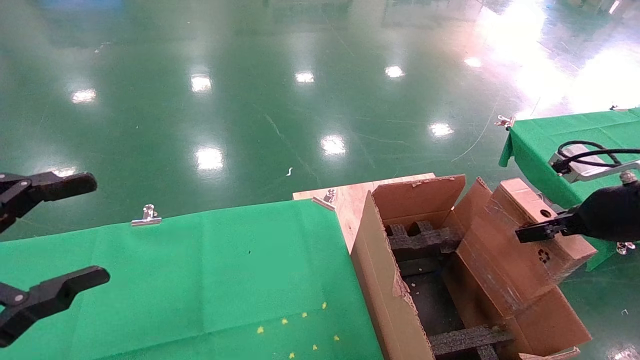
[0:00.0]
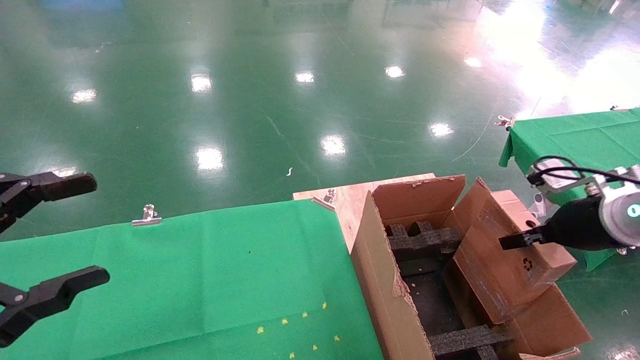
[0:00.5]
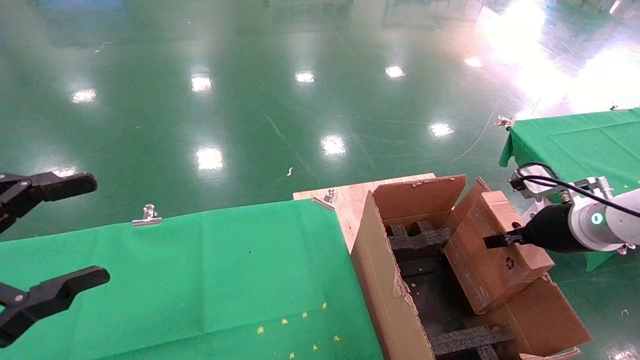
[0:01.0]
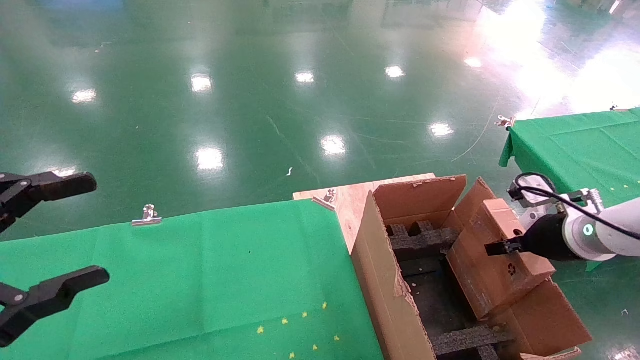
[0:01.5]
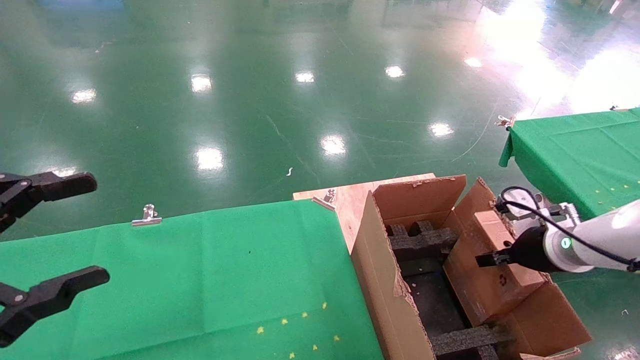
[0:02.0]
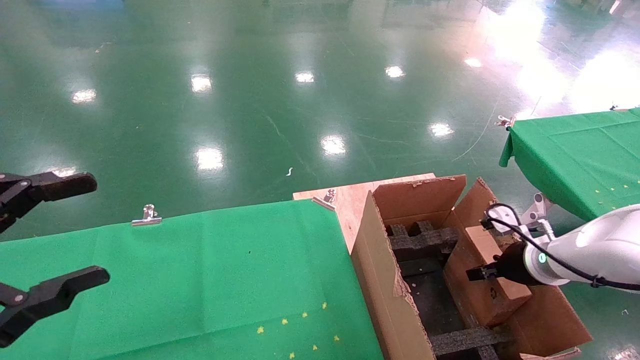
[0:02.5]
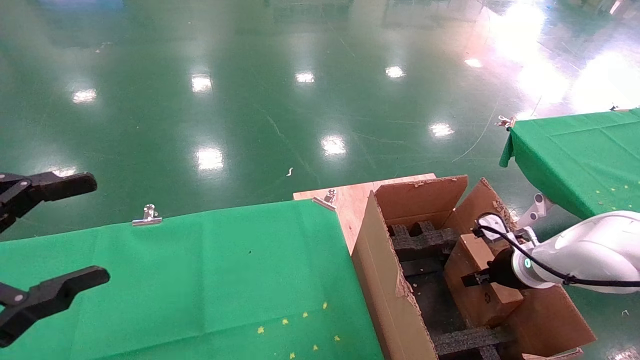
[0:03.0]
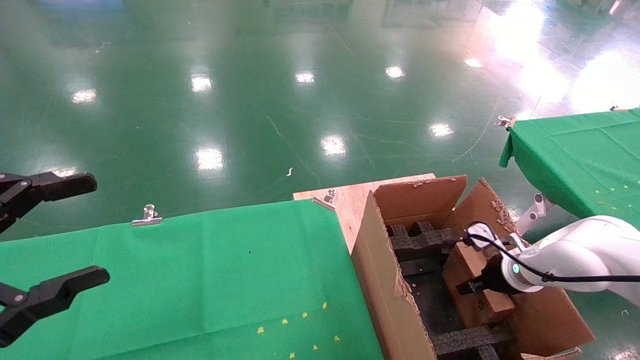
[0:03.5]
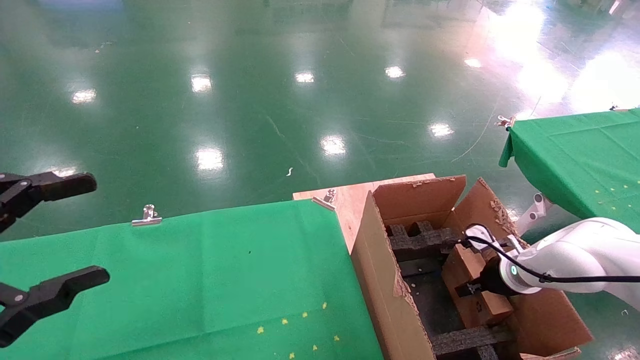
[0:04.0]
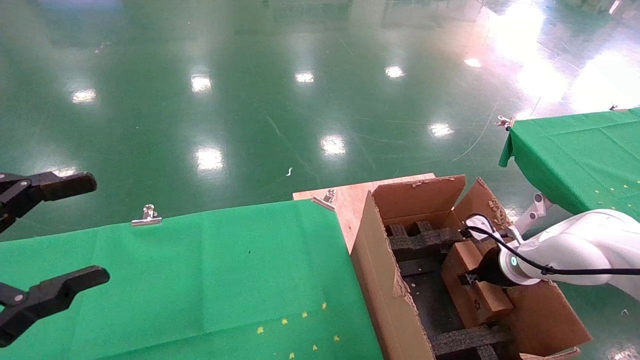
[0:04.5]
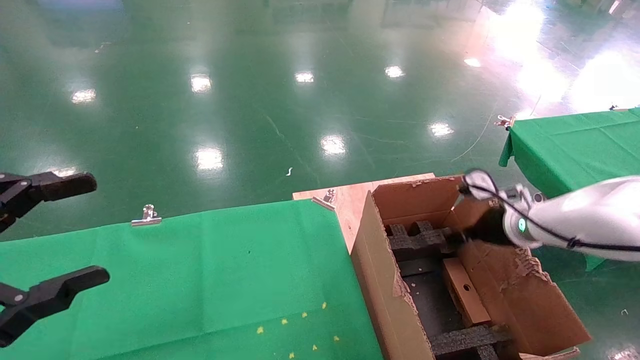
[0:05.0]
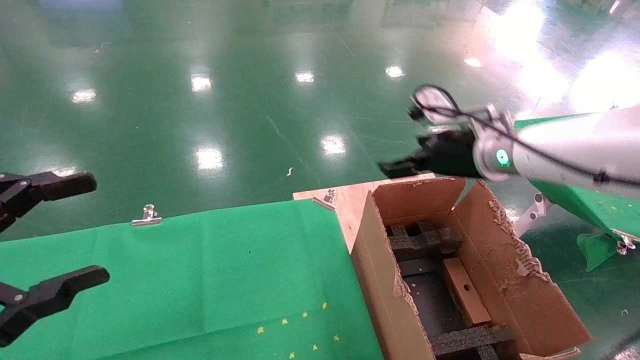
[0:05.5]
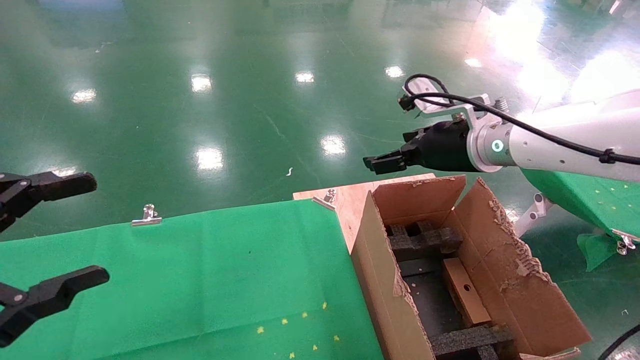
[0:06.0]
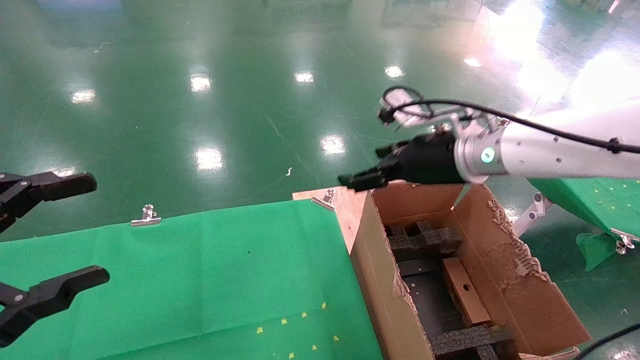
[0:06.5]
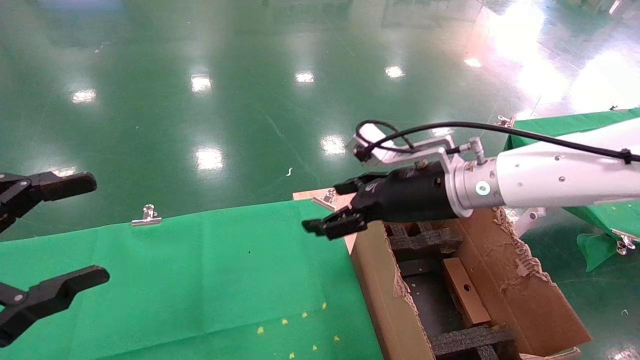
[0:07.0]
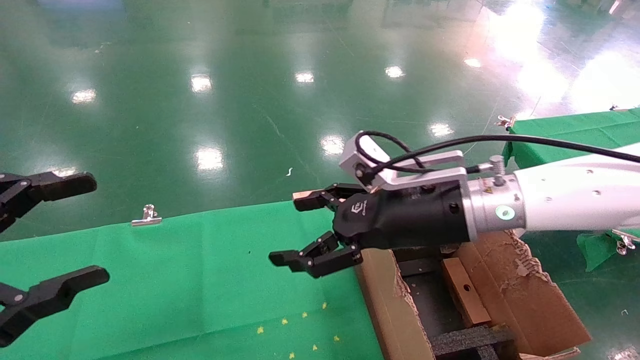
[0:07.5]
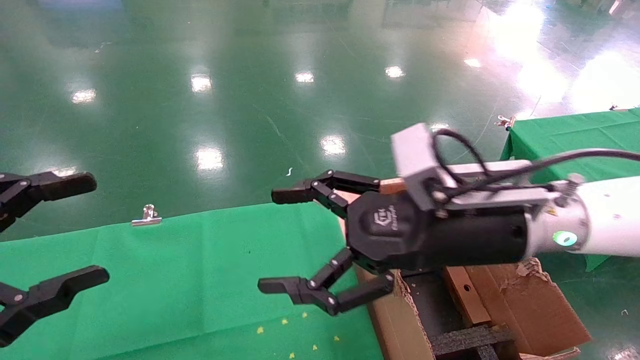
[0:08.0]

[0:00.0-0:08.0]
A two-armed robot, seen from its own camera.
Task of the whole recording: using a robotic arm to pick up a cardboard box and palace it the carton.
Step, 0:00.0 to 0:05.0: Place the mouse and the power cord paper box into the container.
0:00.0 to 0:02.0: The right gripper shifts some 15 cm downward and forward.
0:02.0 to 0:04.0: The right gripper heads downward and forward, covering about 10 cm.
0:04.0 to 0:06.0: The right gripper travels upward and to the left by about 30 cm, and opens its fingers.
0:06.0 to 0:08.0: The right gripper goes about 15 cm backward and to the left.

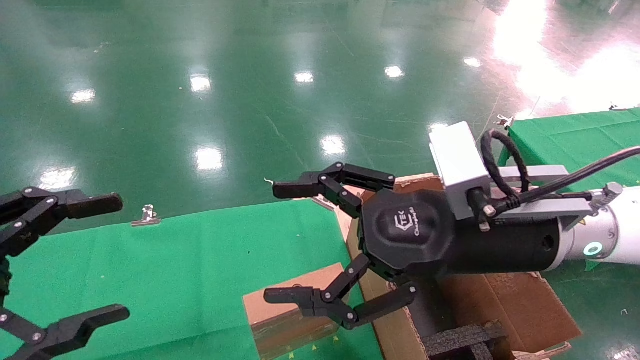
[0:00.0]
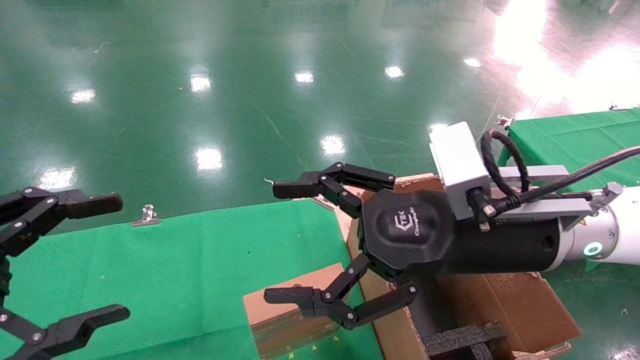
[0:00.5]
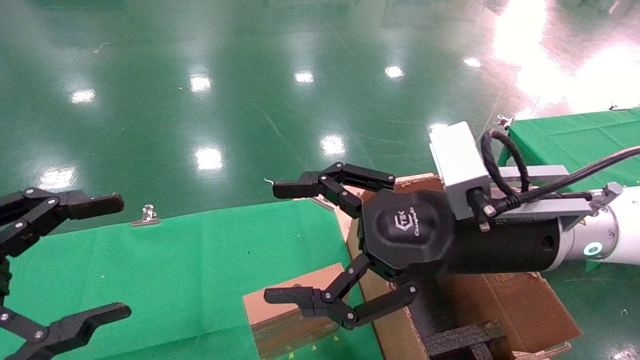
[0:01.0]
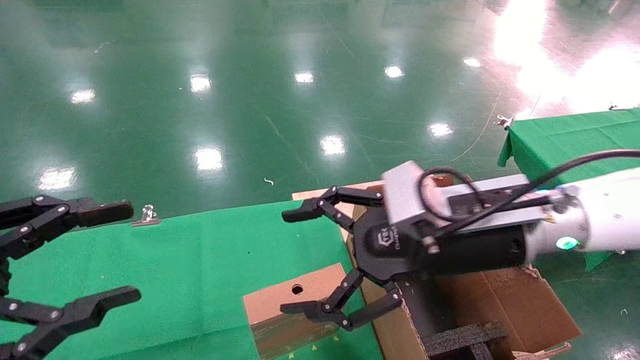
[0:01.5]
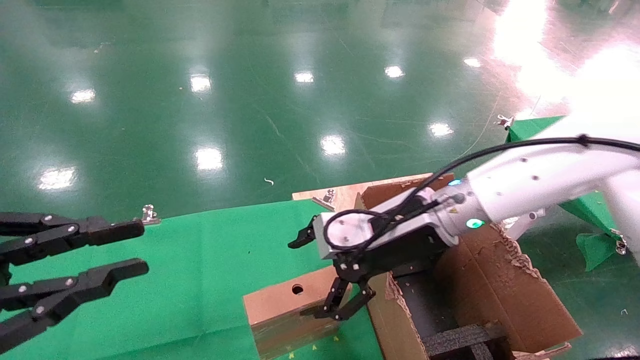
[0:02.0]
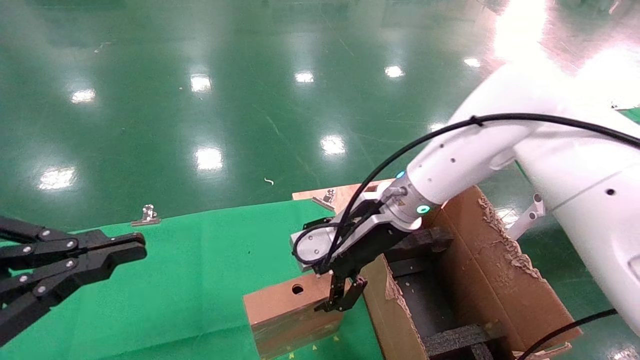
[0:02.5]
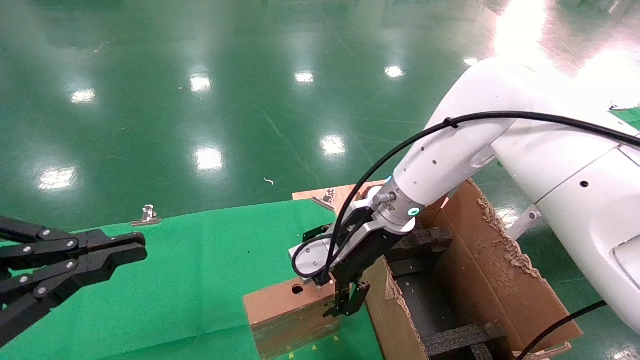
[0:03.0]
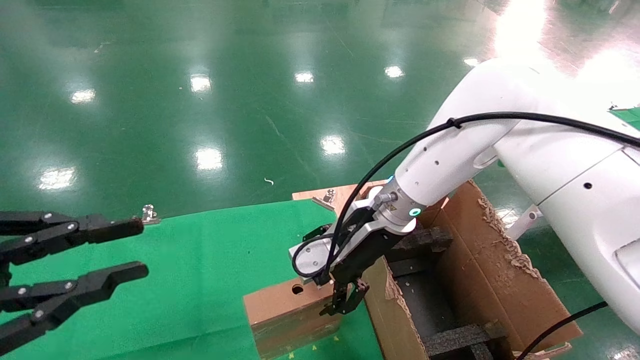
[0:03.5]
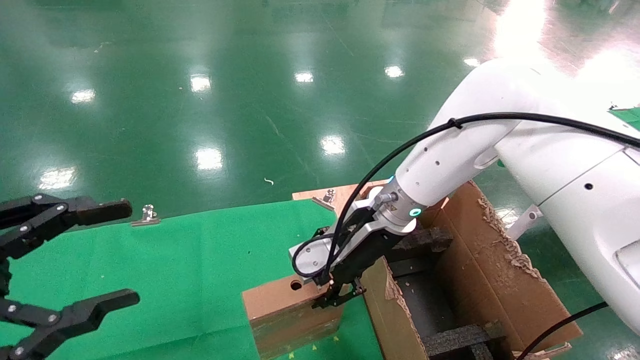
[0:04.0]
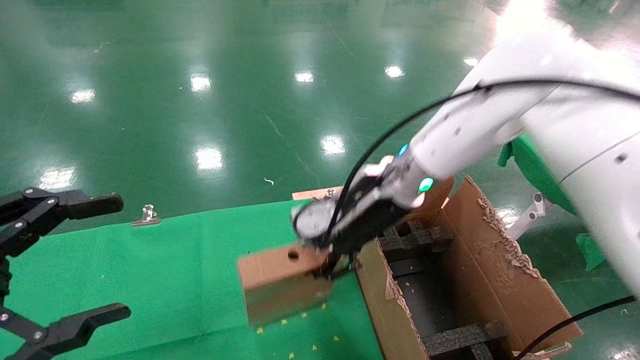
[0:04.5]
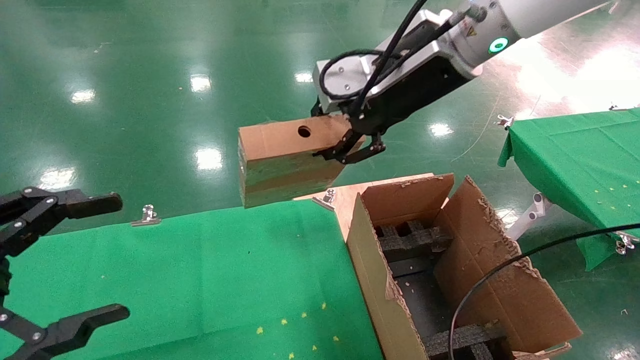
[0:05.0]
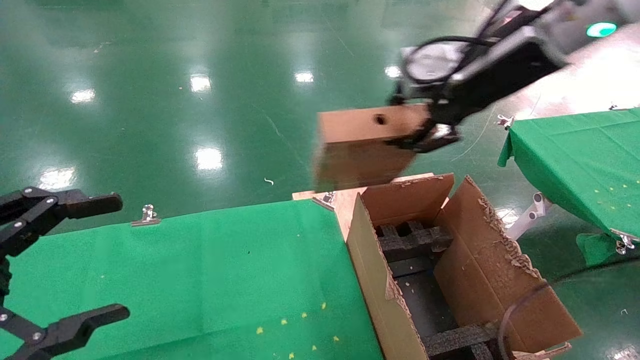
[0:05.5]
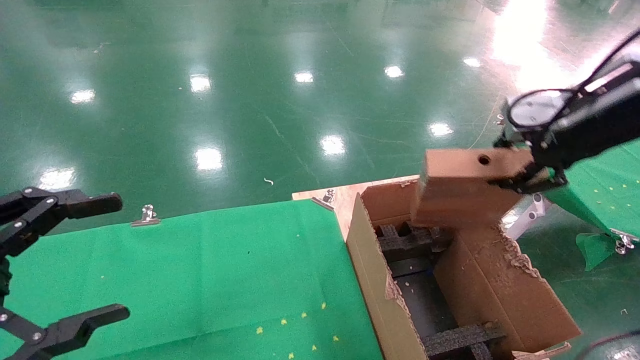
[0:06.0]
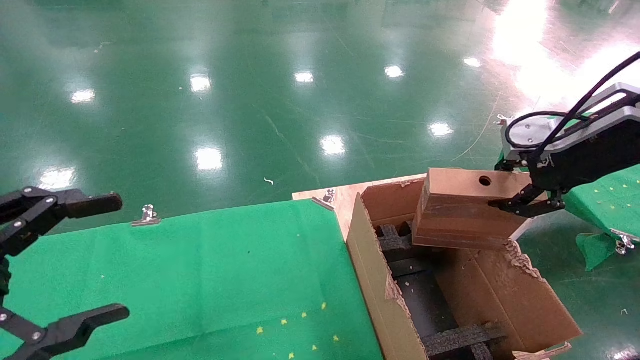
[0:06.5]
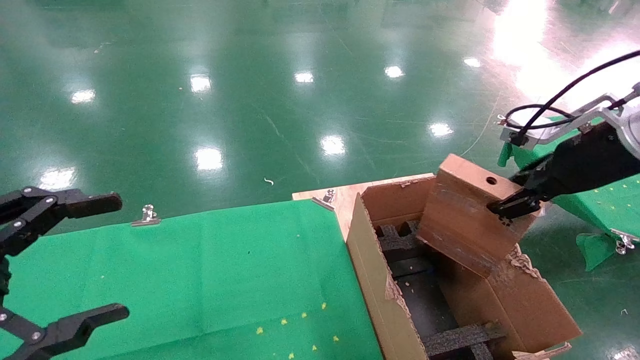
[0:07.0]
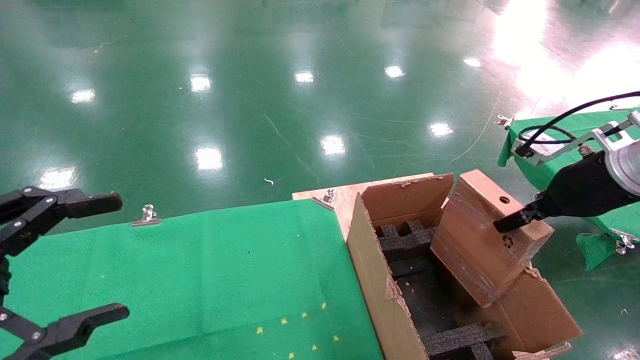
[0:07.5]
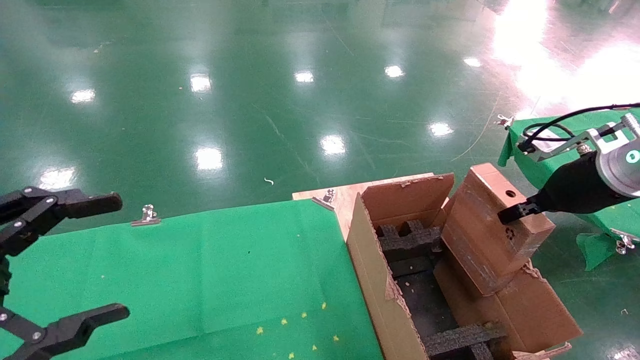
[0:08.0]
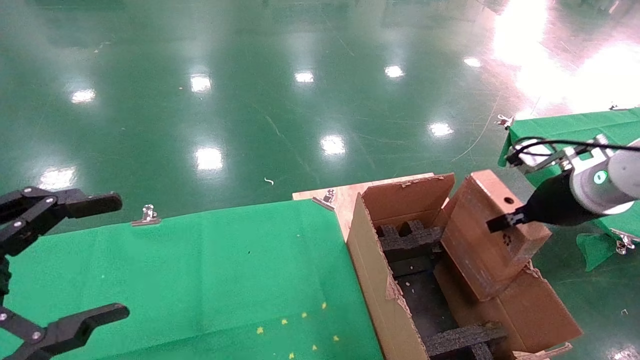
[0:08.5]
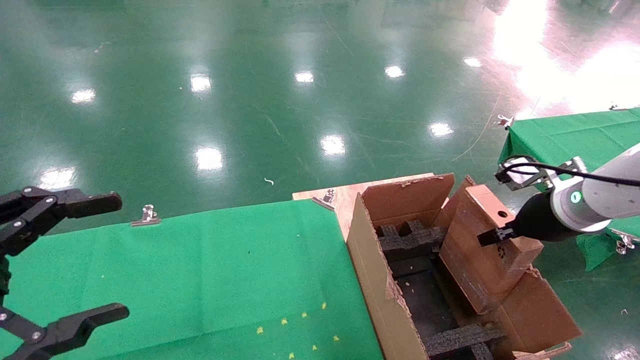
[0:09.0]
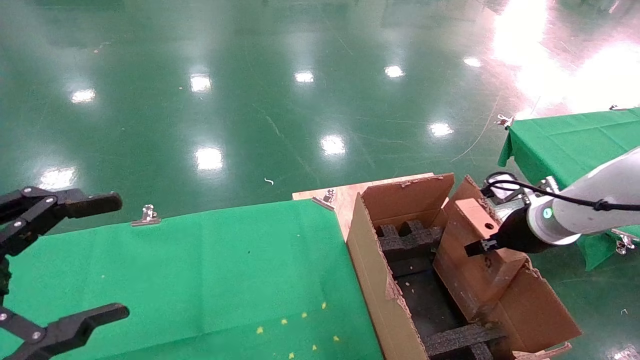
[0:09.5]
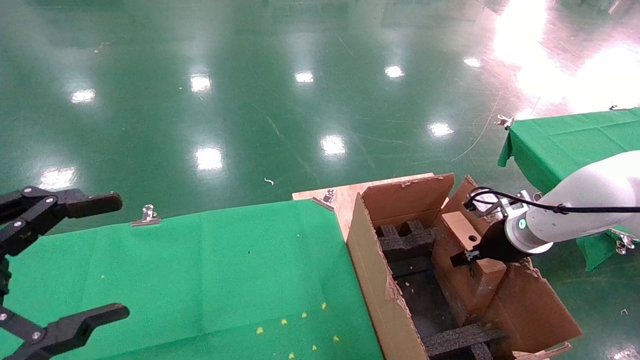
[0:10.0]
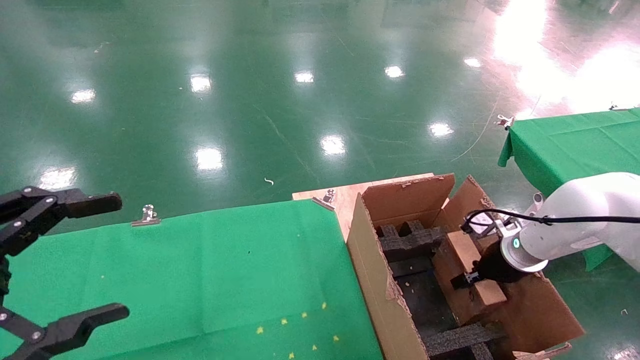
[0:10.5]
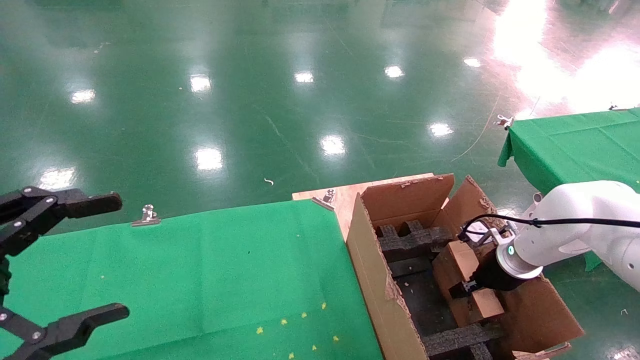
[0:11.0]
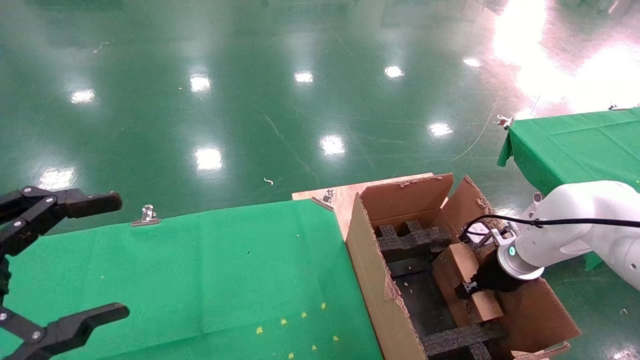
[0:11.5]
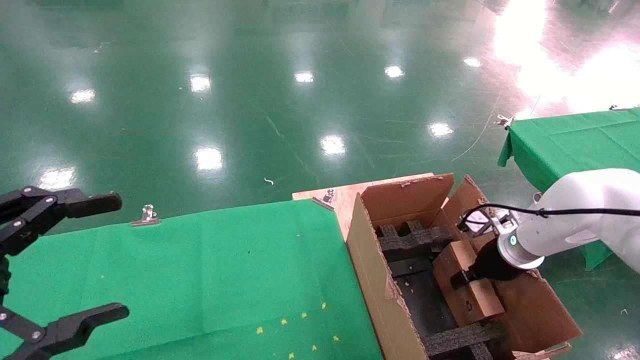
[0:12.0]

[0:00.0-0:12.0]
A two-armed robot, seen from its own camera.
Task of the whole recording: using a robotic arm to pick up a cardboard box and palace it the carton.
Step, 0:01.5 to 0:04.0: Pick up the mouse and the power cord paper box.
Step, 0:04.5 to 0:11.5: Place the mouse and the power cord paper box into the container.
0:00.0 to 0:02.0: The right gripper heads forward, covering roughly 10 cm. The left gripper closes its fingers.
0:02.0 to 0:04.0: The right gripper changes place by some 5 cm, and closes its fingers.
0:04.0 to 0:06.0: The left gripper opens. Meanwhile the right gripper heads to the right, upward and backward, covering approximately 30 cm, and closes its fingers.
0:06.0 to 0:08.0: The right gripper moves downward, approximately 10 cm.
0:08.0 to 0:10.0: The right gripper goes approximately 15 cm downward and forward.
0:10.0 to 0:12.0: The right gripper opens up.
